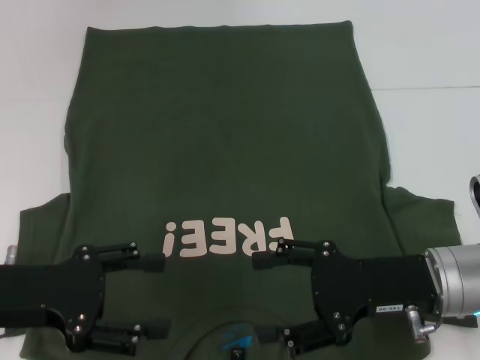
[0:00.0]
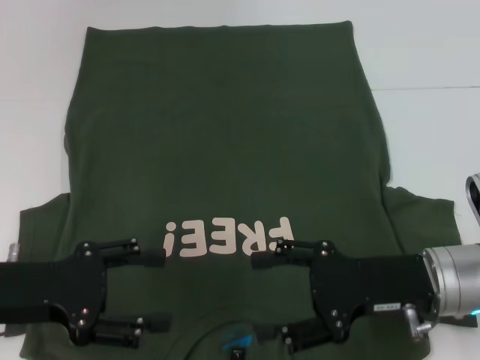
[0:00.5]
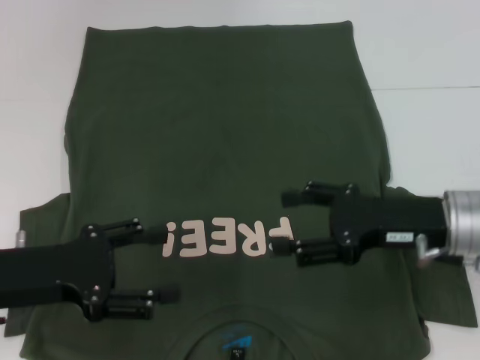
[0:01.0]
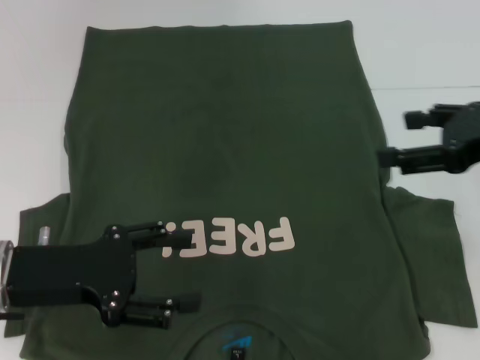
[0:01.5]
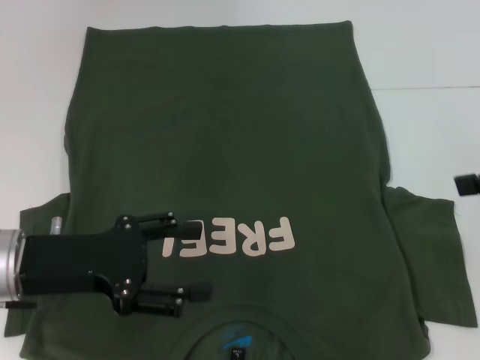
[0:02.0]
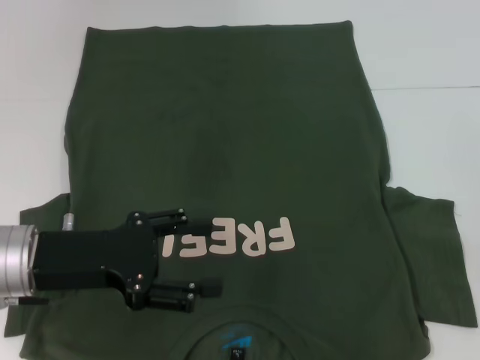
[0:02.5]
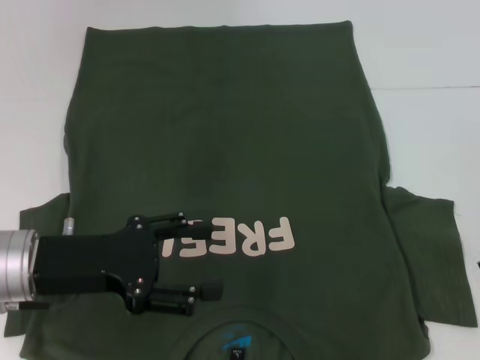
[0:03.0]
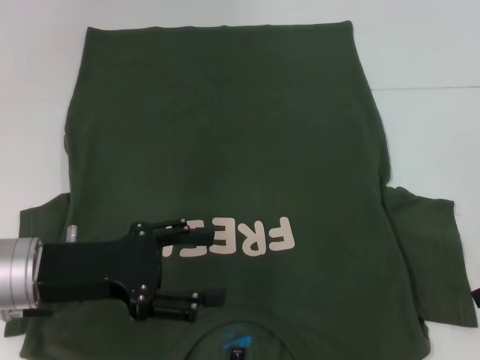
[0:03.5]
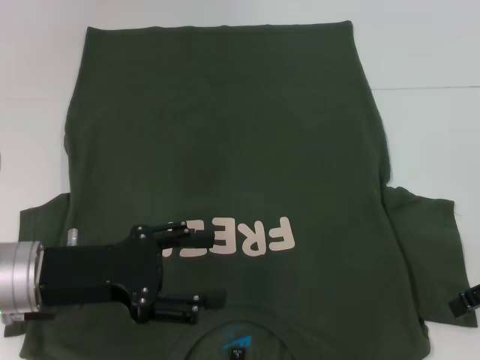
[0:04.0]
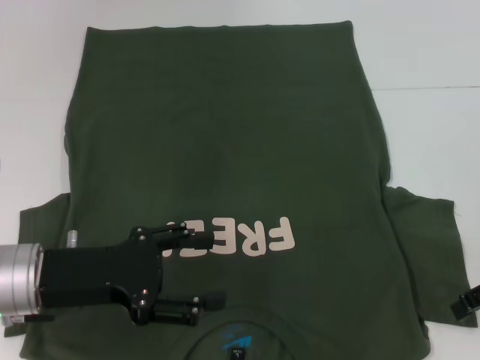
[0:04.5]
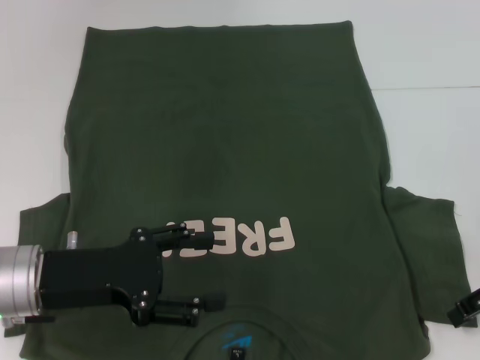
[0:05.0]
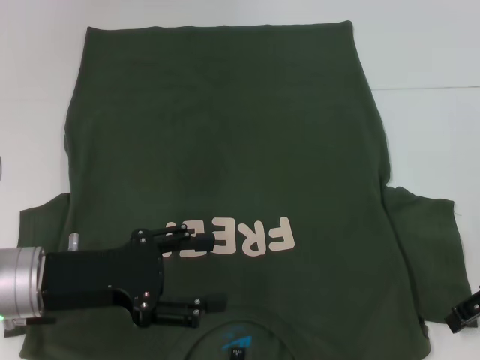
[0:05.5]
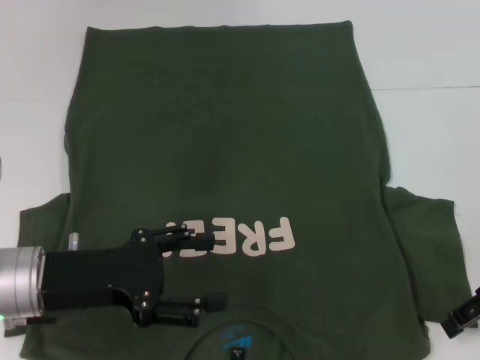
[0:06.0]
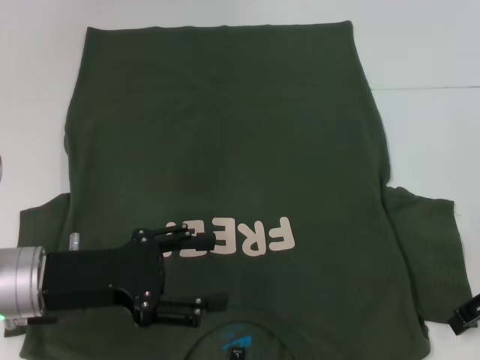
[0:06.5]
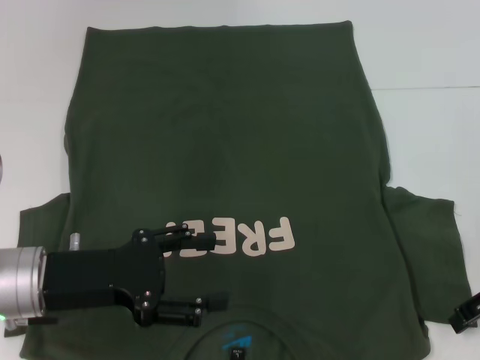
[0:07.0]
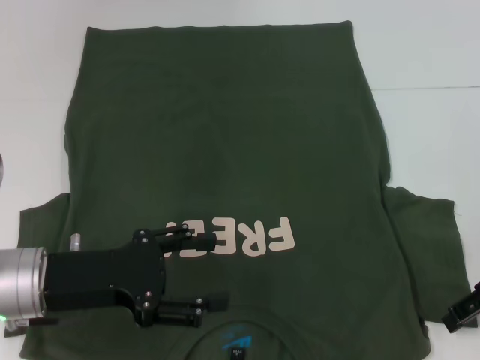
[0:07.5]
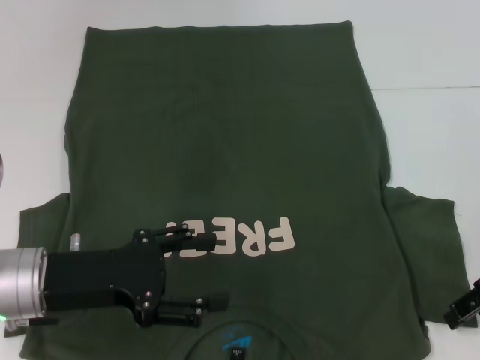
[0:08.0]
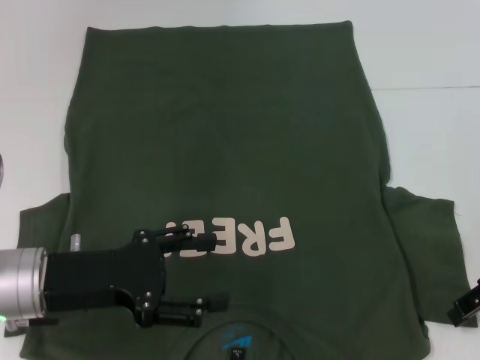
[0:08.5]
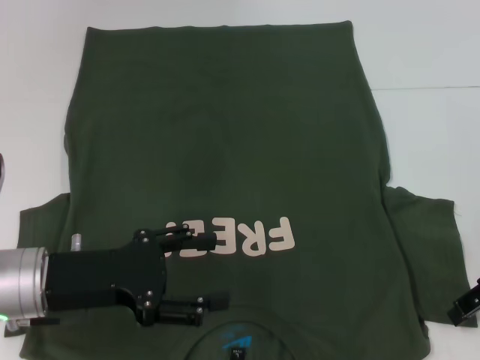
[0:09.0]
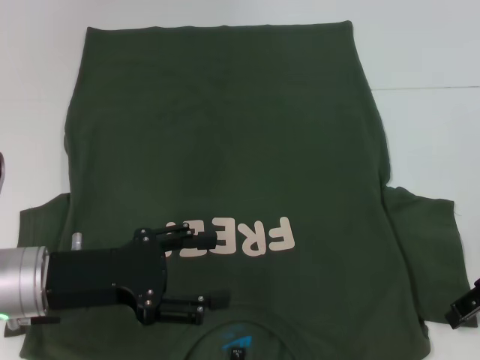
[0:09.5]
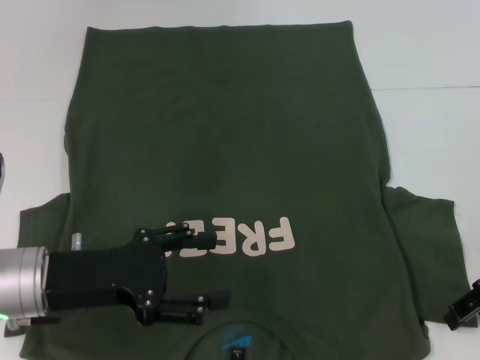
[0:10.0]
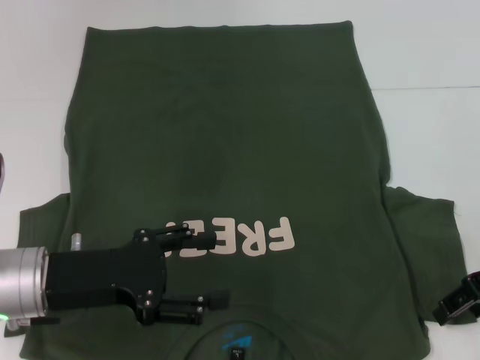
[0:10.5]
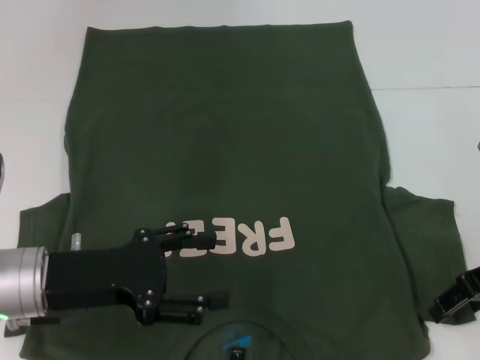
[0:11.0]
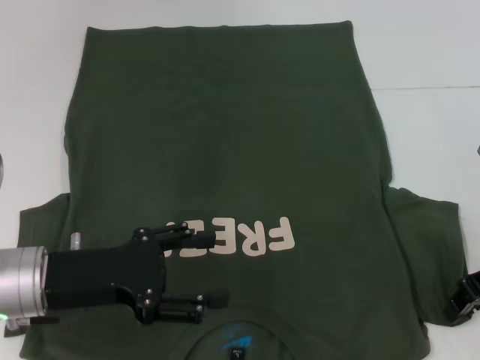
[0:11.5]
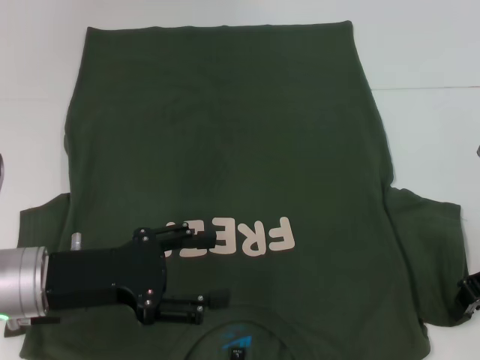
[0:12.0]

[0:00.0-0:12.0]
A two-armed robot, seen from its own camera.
0:00.0 to 0:02.0: The right gripper is displaced upward and to the right by approximately 20 cm.
0:02.0 to 0:04.0: The right gripper is displaced downward by approximately 10 cm.
0:04.0 to 0:06.0: The grippers stay close to where they were, moving slightly.
0:06.0 to 0:10.0: Neither gripper changes place.
0:10.0 to 0:12.0: The right gripper closes up.

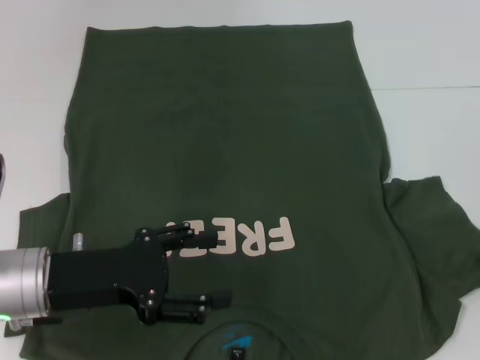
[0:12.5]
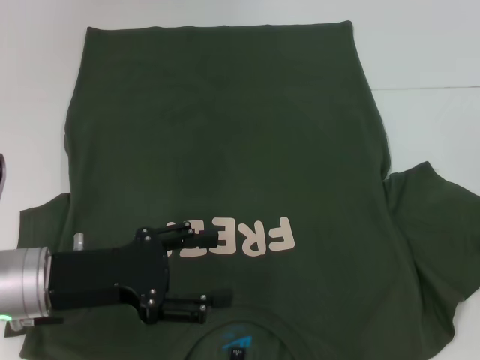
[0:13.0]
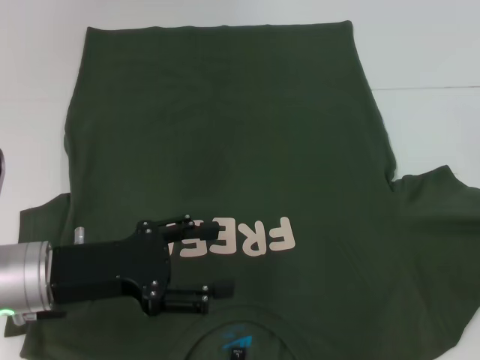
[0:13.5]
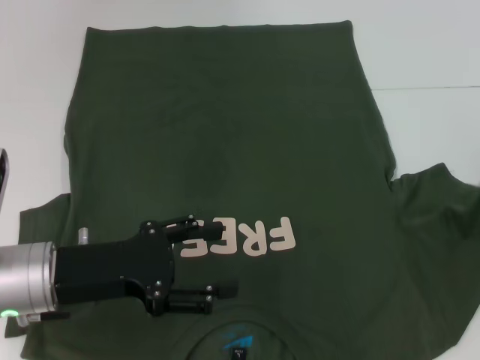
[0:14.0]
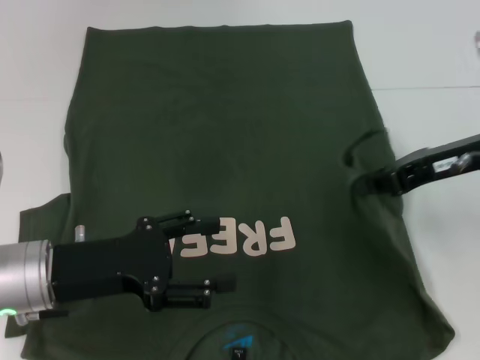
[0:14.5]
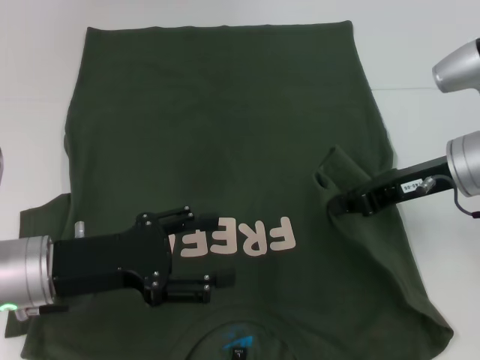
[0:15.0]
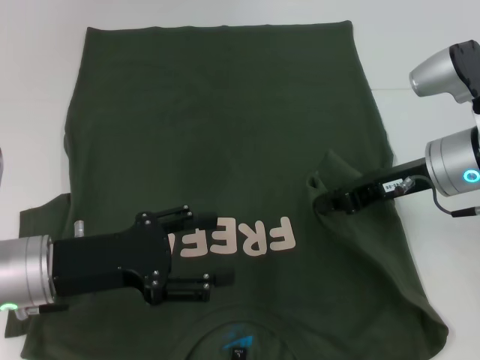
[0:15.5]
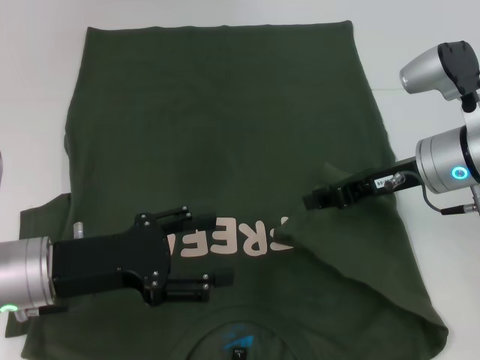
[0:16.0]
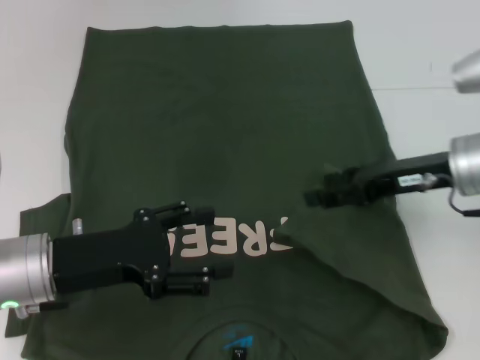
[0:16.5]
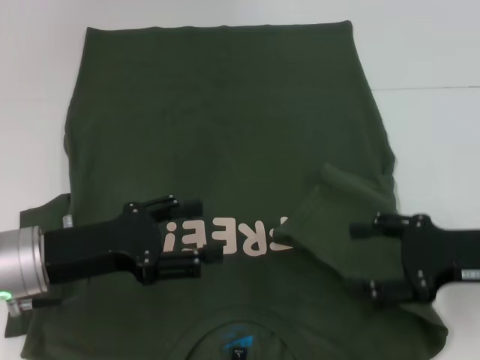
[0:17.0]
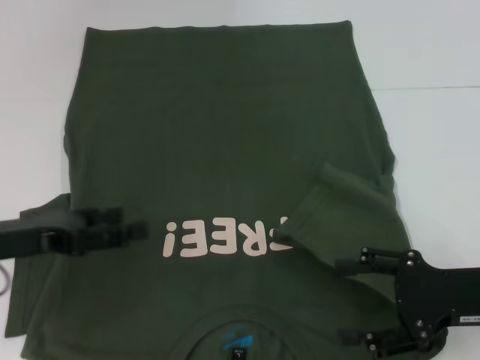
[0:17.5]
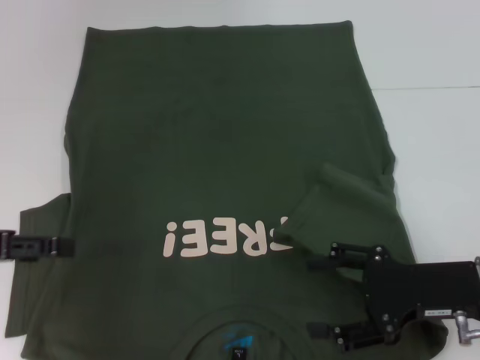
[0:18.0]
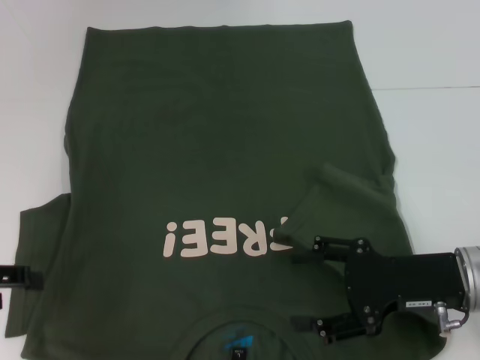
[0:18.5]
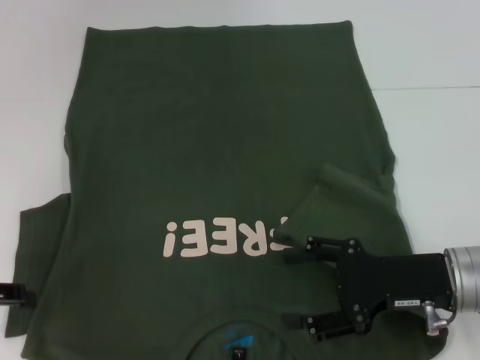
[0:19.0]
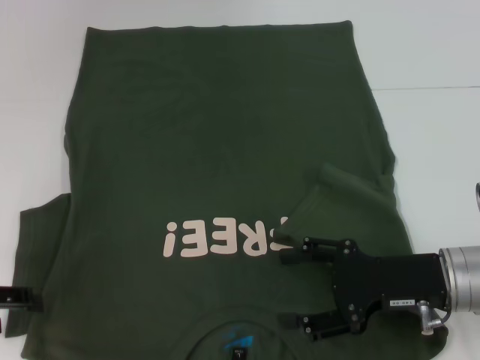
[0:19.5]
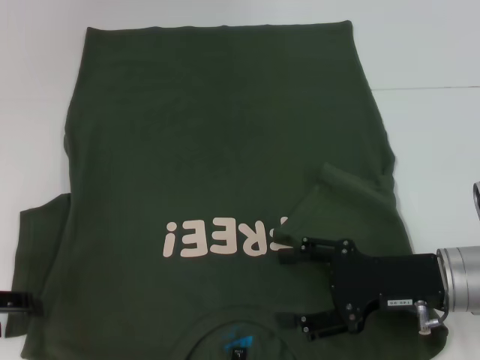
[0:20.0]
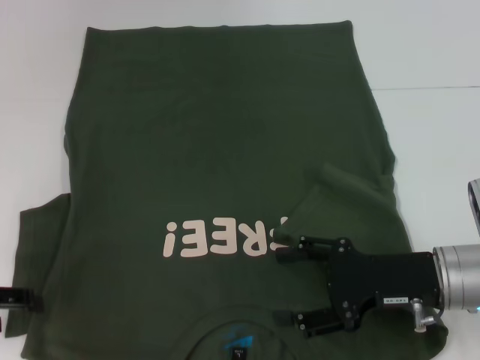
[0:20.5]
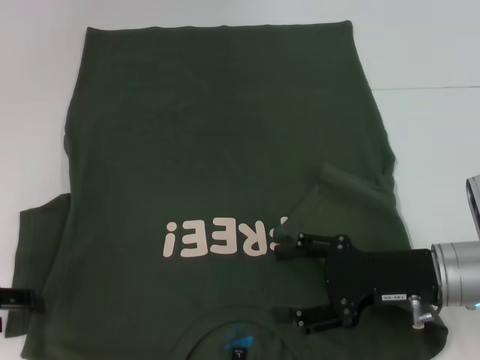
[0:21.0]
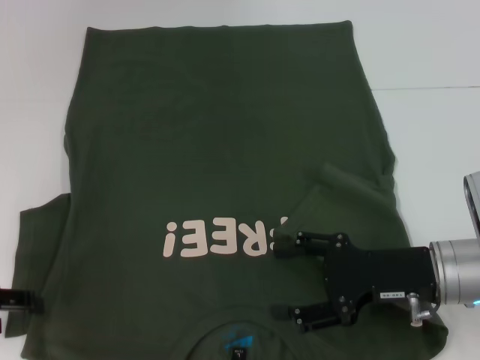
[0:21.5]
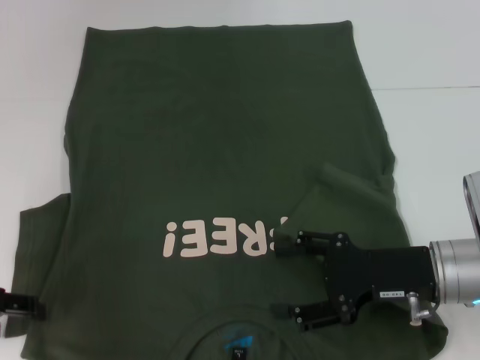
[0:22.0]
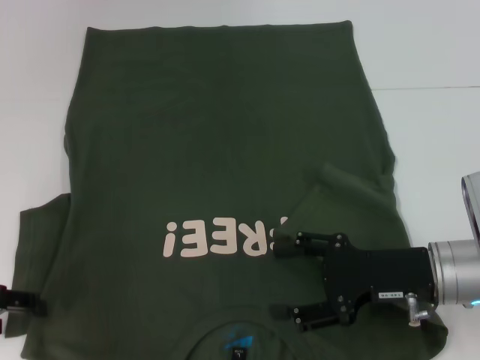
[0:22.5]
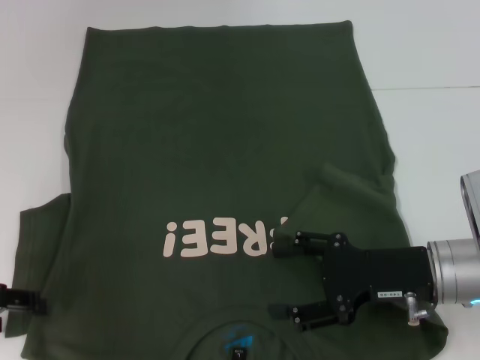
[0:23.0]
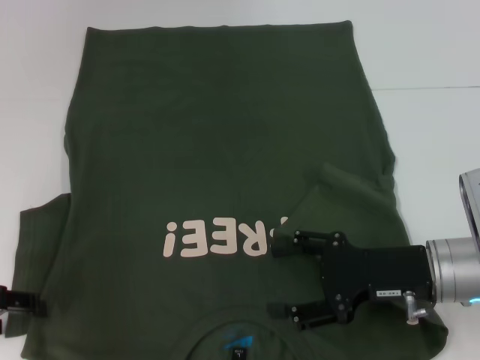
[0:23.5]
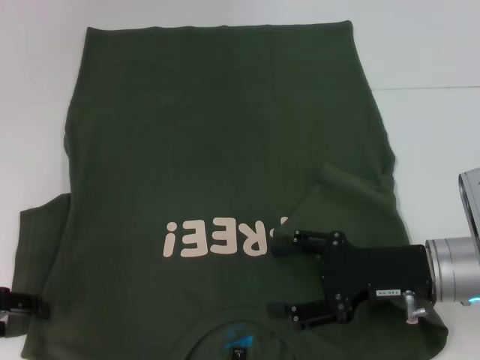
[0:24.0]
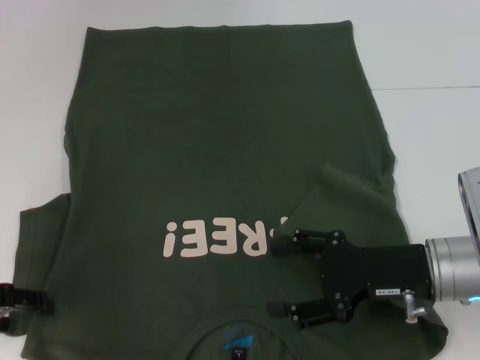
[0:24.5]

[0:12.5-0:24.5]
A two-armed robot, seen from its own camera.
Step, 0:12.5 to 0:16.0: Fold the bottom right sleeve with your right hand.
0:12.5 to 0:14.5: The right gripper is displaced to the left by some 10 cm.
0:14.5 to 0:16.5: The right gripper opens.
0:16.5 to 0:18.5: The right gripper shifts some 10 cm backward and downward, and opens up, while the left gripper shifts about 15 cm to the left and upward.
0:18.5 to 0:22.5: The grippers make only small movements.
0:22.5 to 0:24.5: Neither gripper changes place.

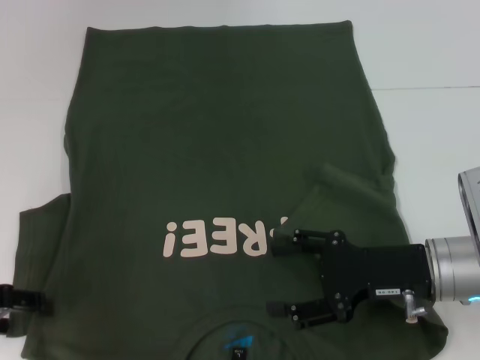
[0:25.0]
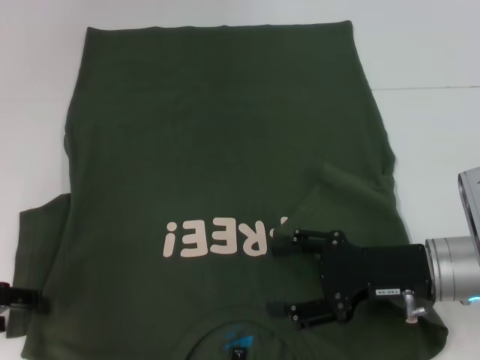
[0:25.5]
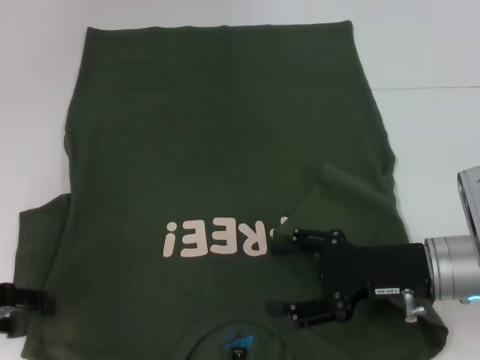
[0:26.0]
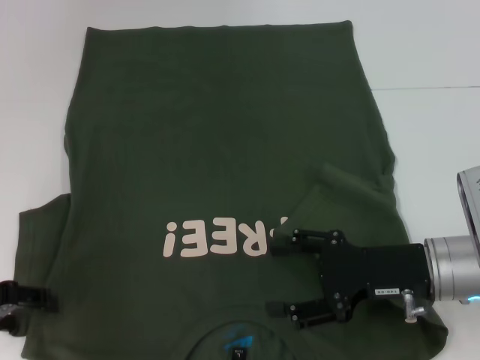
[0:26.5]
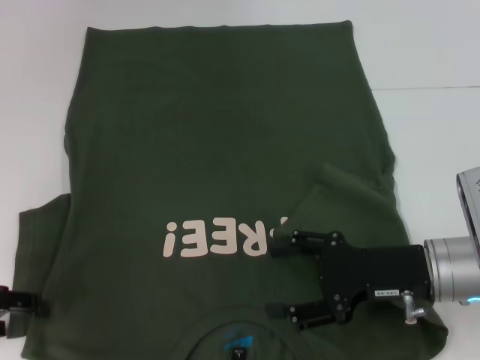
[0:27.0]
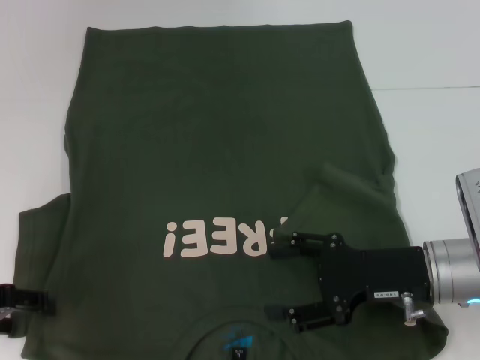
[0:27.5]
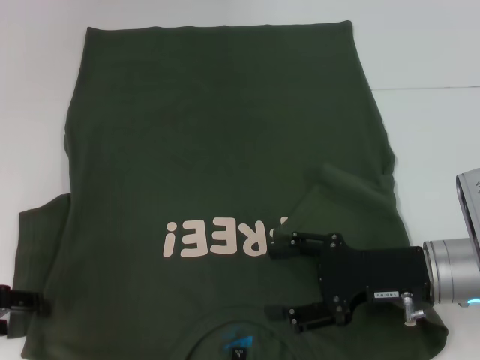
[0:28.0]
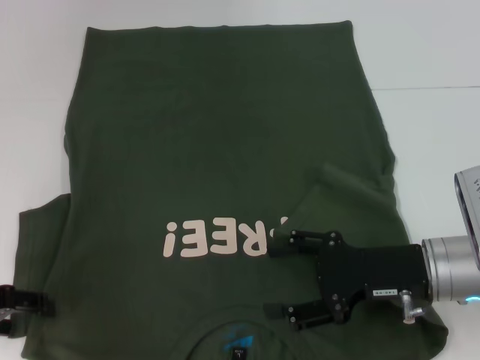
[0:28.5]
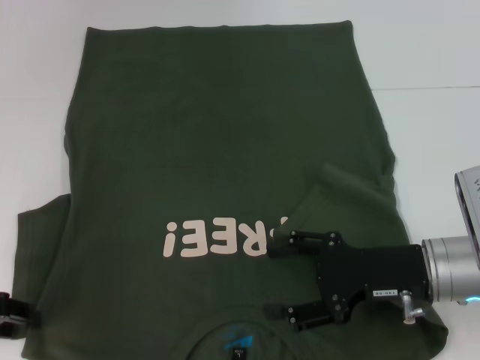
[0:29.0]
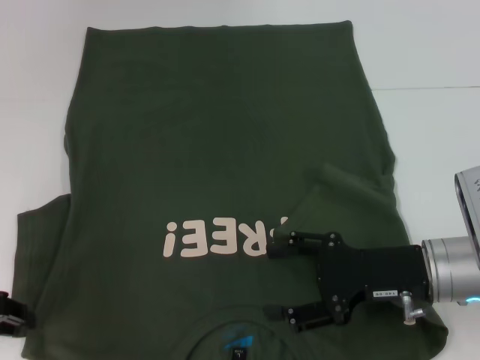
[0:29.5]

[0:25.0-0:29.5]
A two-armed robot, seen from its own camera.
0:25.0 to 0:27.0: Neither gripper changes place.
0:27.0 to 0:29.5: The left gripper closes its fingers.
